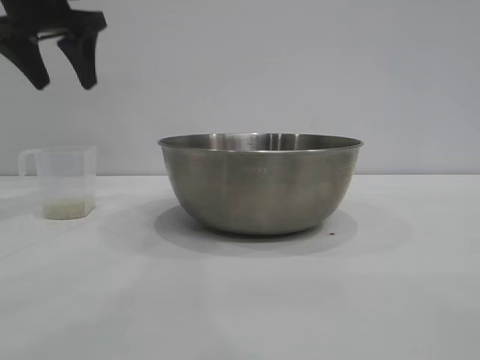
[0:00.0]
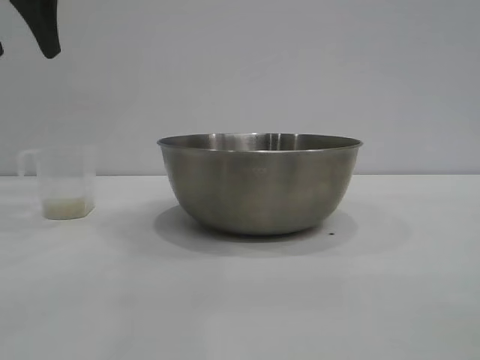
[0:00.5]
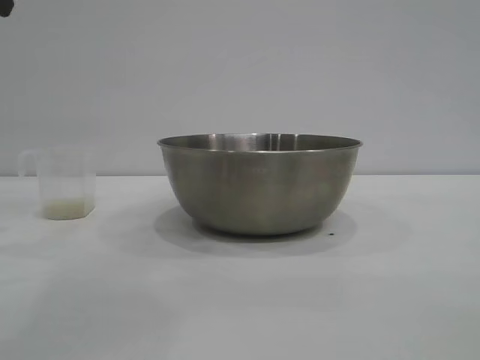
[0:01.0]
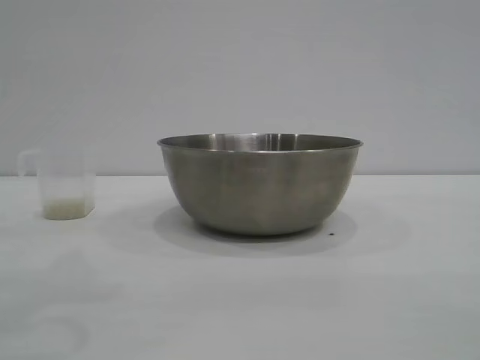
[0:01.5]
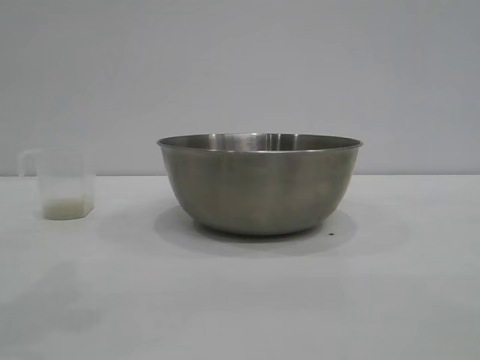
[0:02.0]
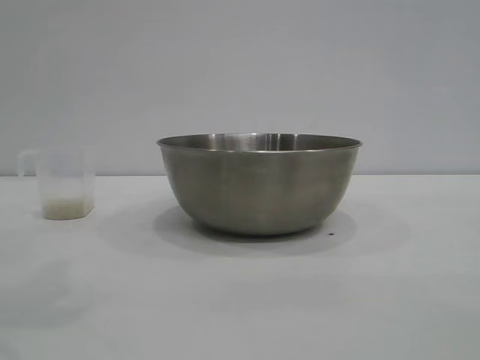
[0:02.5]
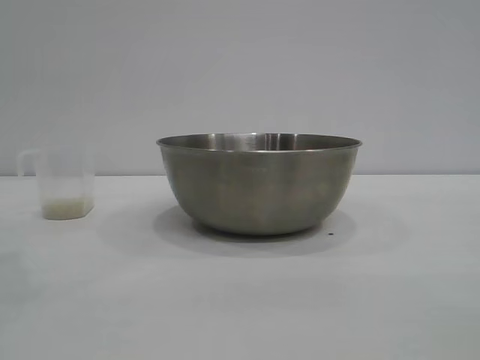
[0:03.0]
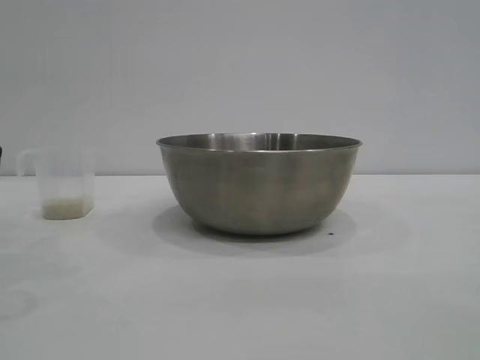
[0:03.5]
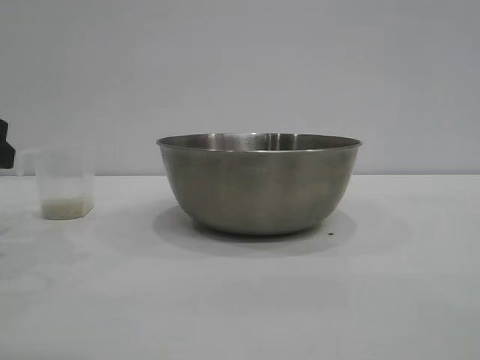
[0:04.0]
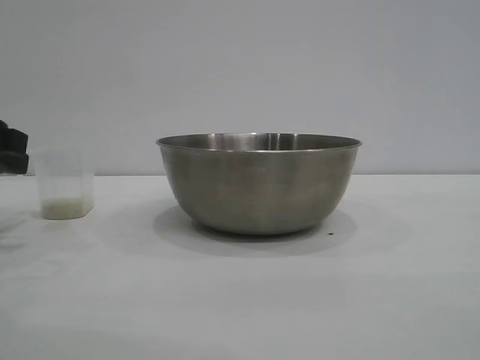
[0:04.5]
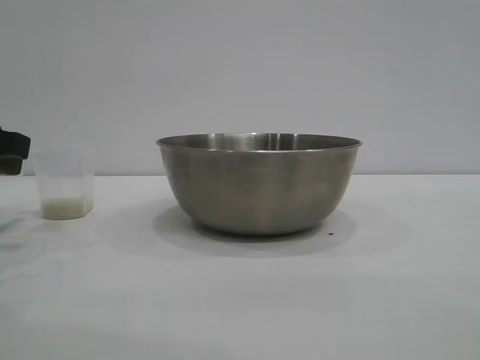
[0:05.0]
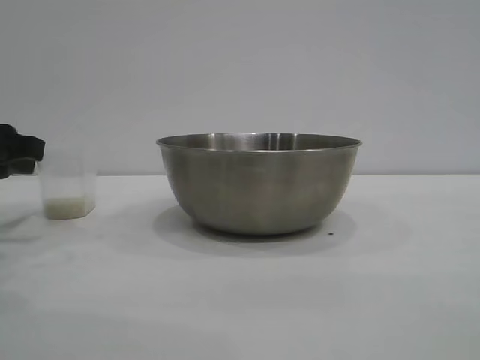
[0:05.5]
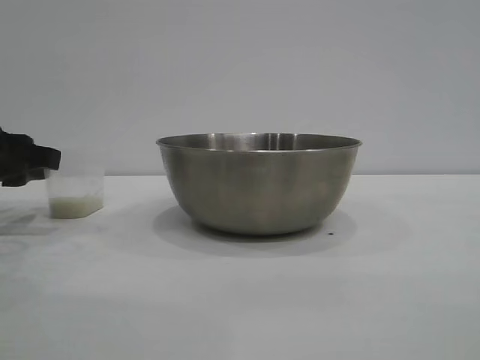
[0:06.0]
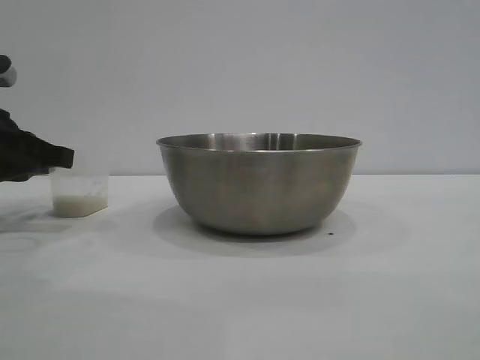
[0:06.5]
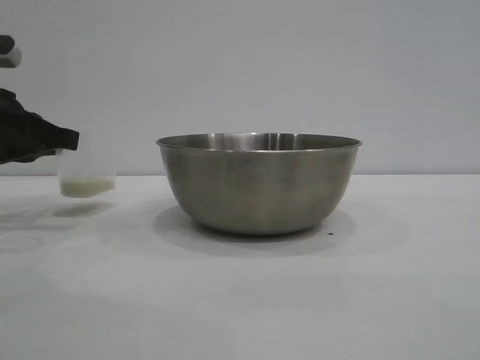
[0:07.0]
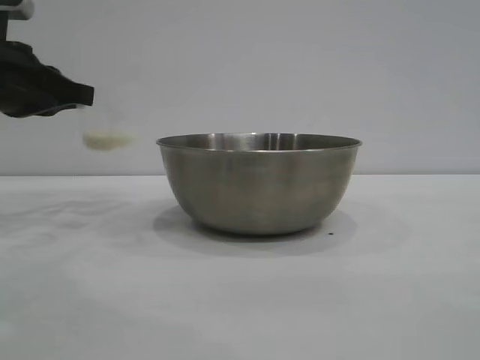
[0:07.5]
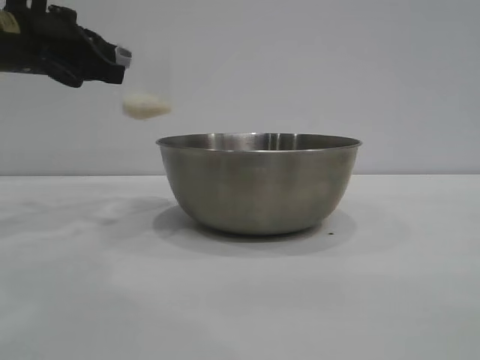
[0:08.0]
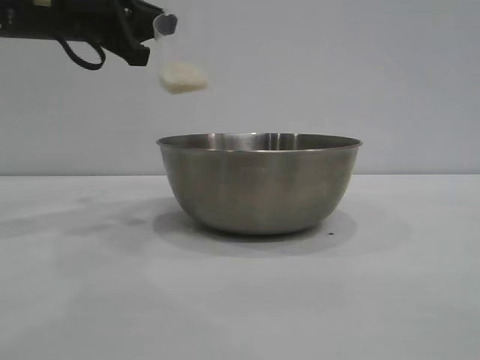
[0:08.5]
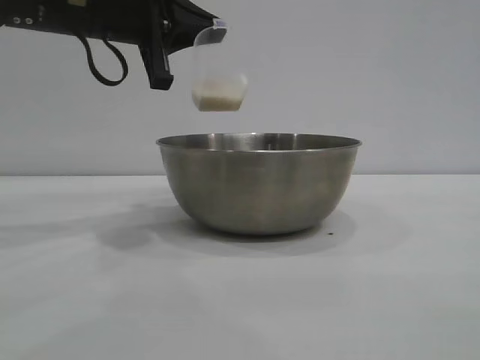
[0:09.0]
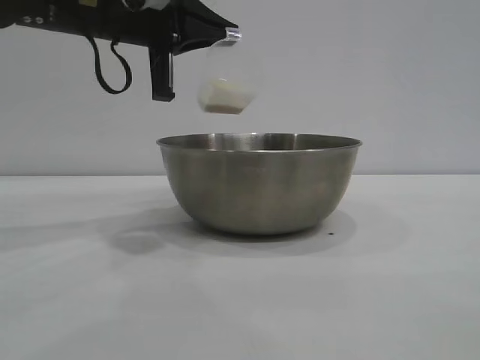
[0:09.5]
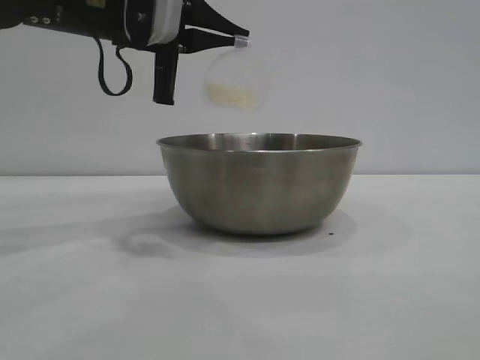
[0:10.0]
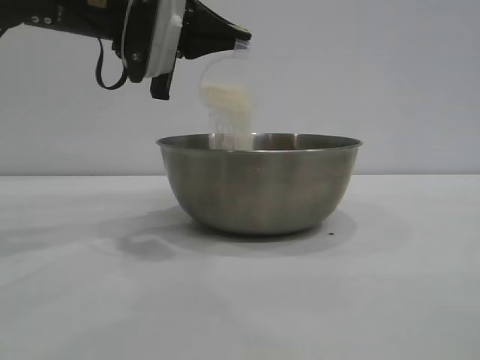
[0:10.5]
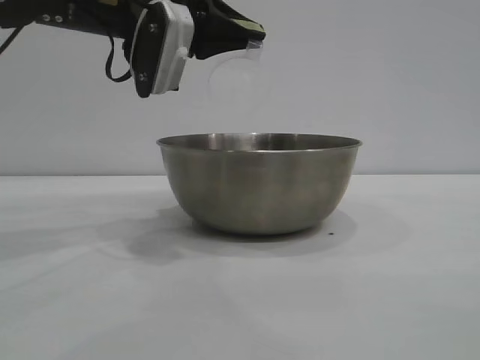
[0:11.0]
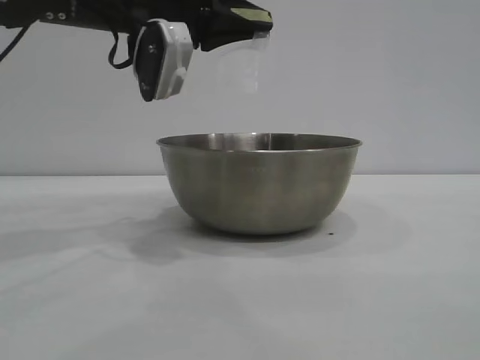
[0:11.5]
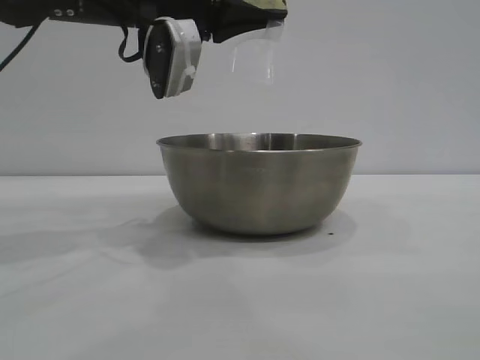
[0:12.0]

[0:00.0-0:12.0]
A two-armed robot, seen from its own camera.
Task of the whole recording: the right gripper grasp the rice container and place it in the center of the table, the left gripper grasp the rice scoop and pour the rice into the rice container.
Step, 0:00.0 to 0:07.0: Pick up the cup with rice in it with the left gripper.

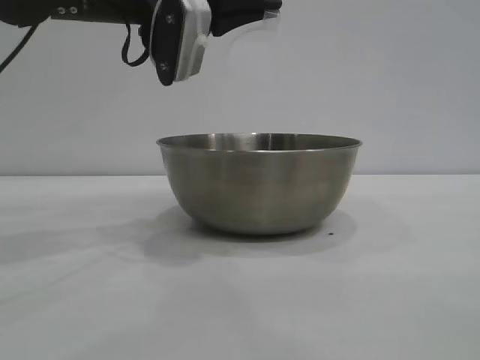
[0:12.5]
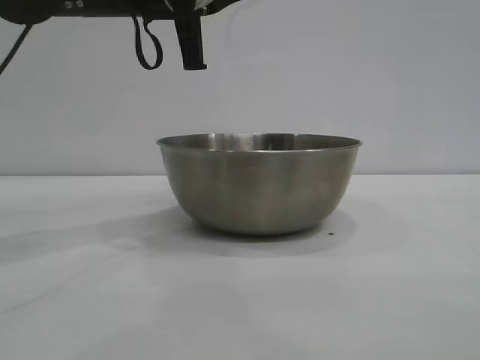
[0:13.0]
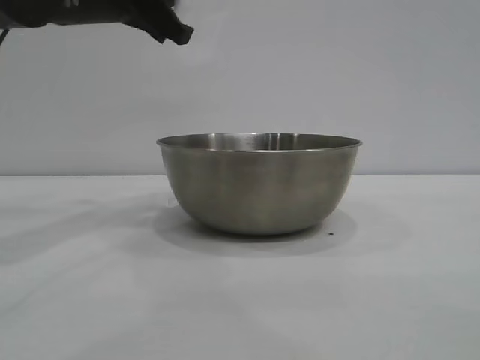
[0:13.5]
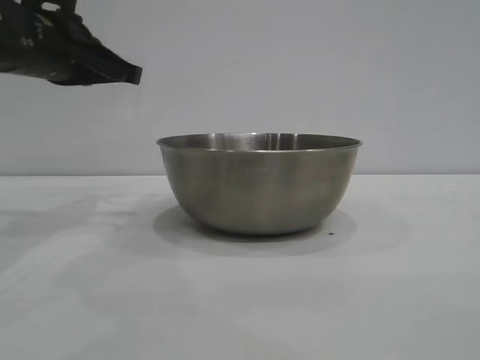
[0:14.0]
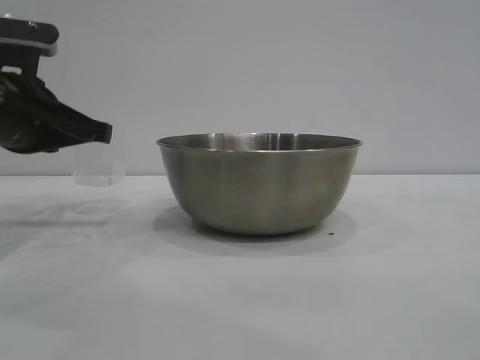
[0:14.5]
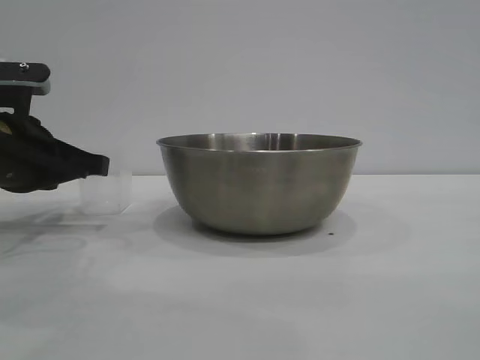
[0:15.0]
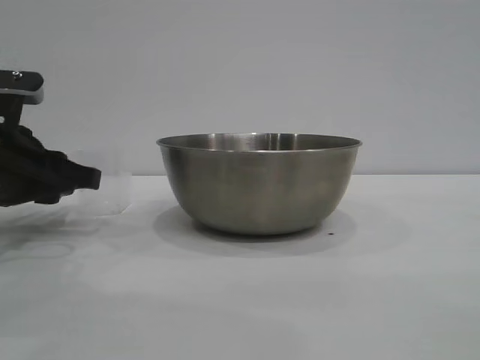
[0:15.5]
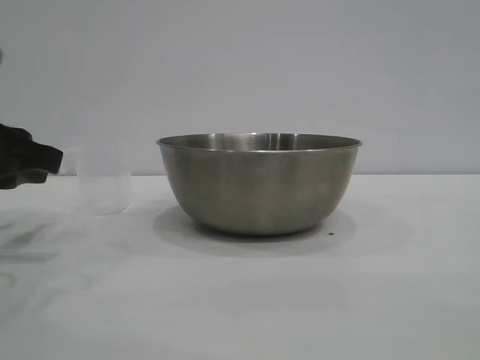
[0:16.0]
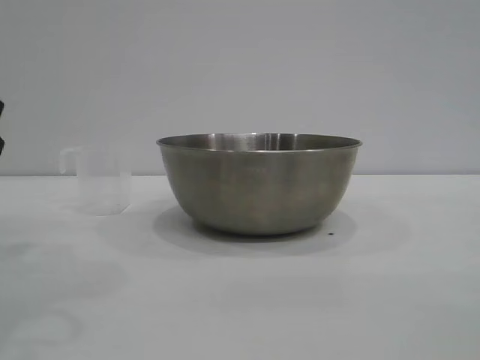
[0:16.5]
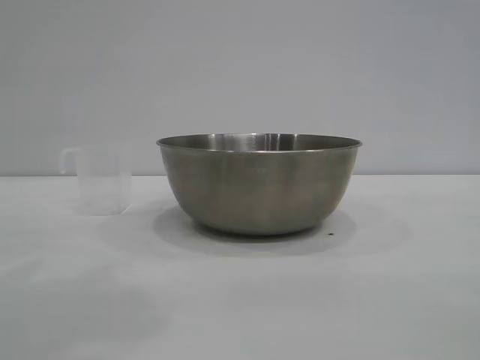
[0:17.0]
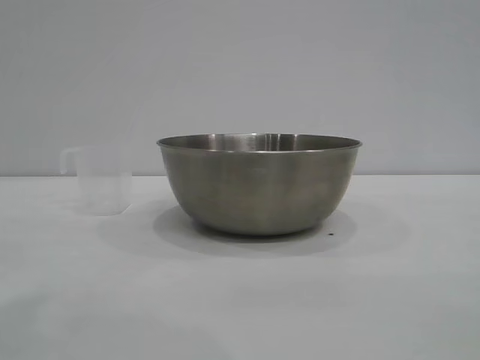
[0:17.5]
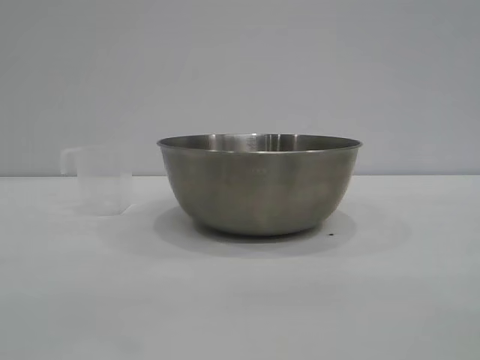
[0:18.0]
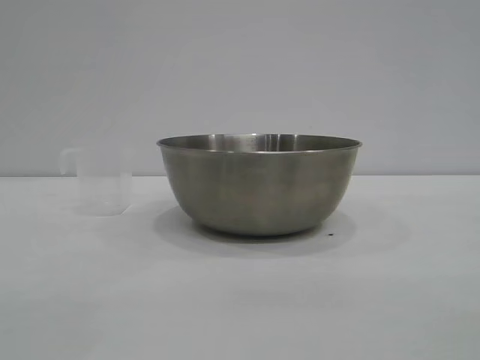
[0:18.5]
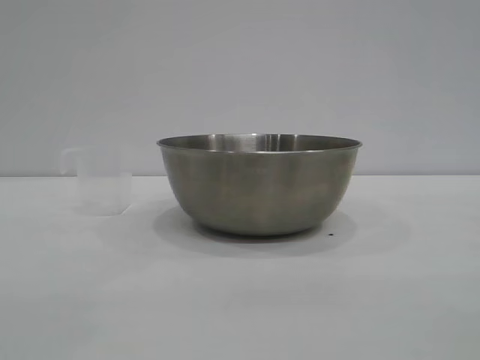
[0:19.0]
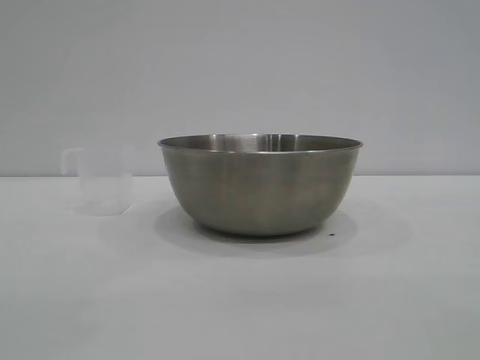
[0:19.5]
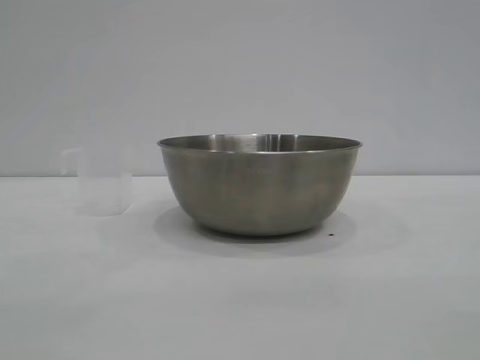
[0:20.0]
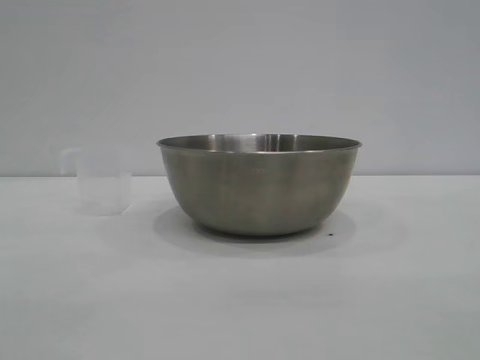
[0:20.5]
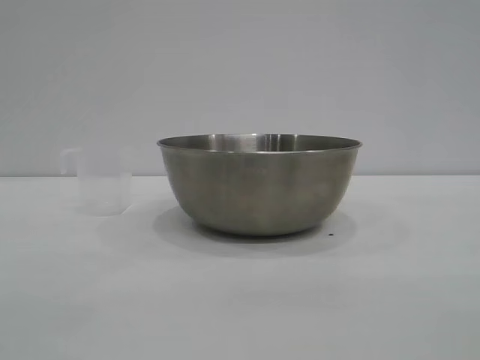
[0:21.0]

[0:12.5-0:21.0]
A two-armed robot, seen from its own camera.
Task of the whole recording: the right gripper grasp the rice container and place it in the center of the table, the left gripper grasp the rice scoop and pour the rice into the rice container.
Step, 0:13.0 to 0:16.0: Place the cup on the table with the left gripper.
